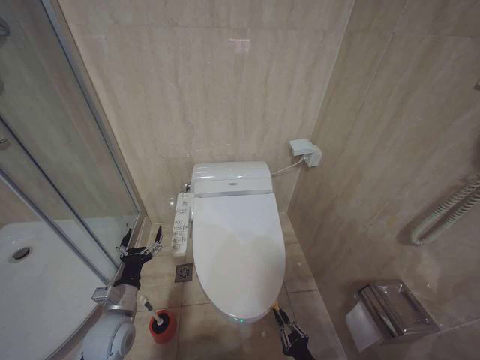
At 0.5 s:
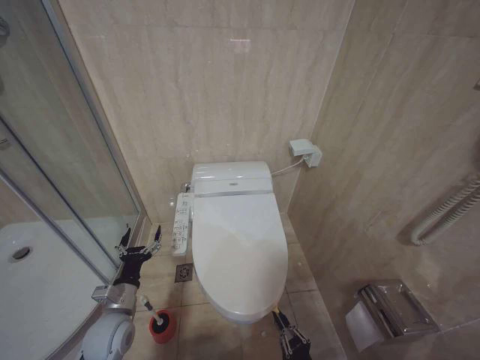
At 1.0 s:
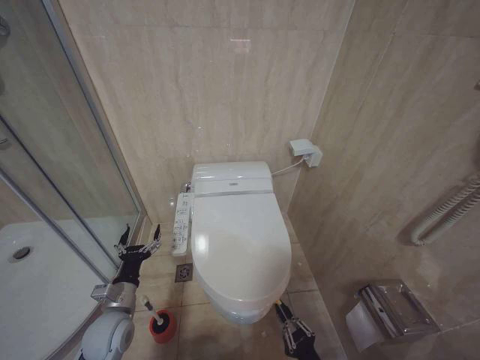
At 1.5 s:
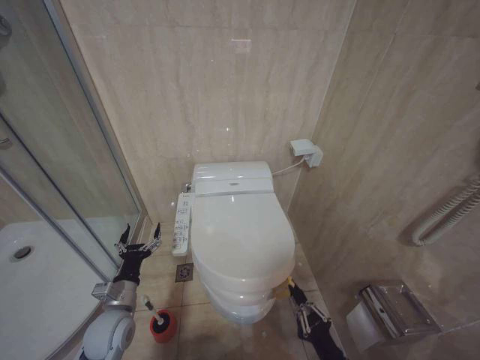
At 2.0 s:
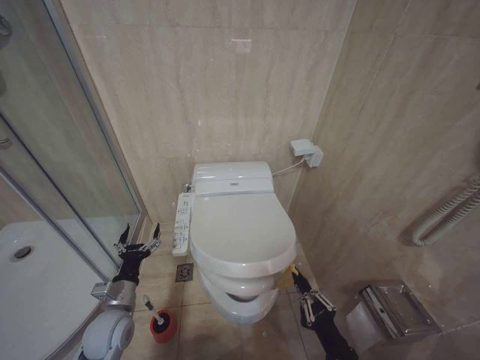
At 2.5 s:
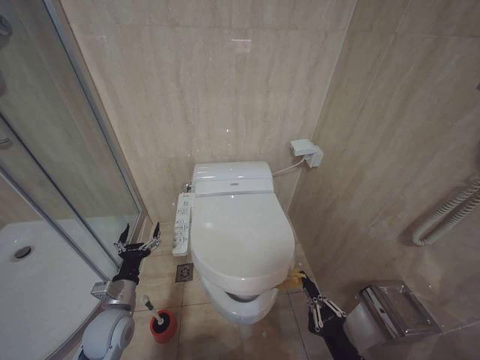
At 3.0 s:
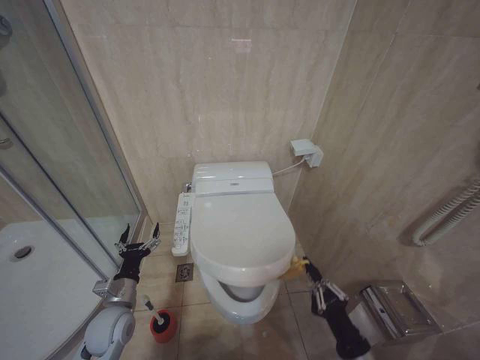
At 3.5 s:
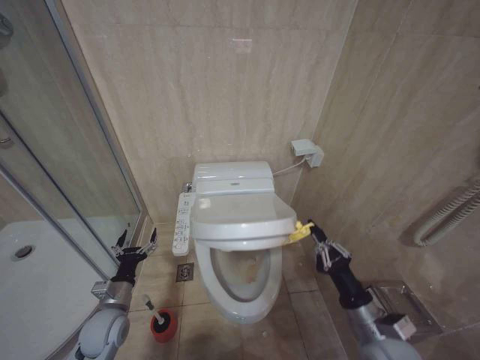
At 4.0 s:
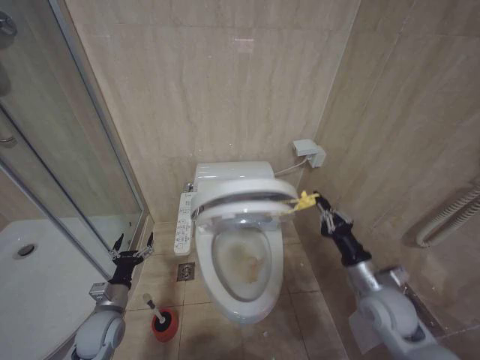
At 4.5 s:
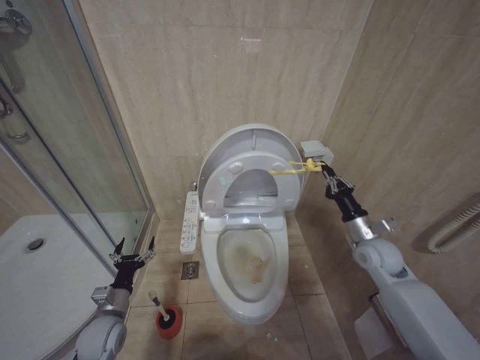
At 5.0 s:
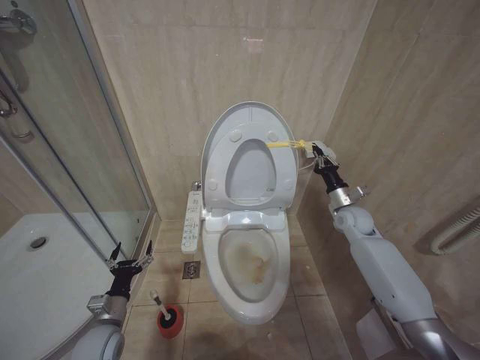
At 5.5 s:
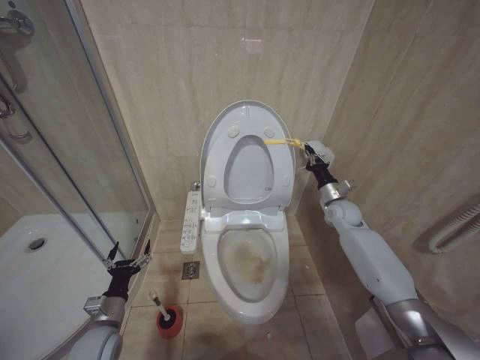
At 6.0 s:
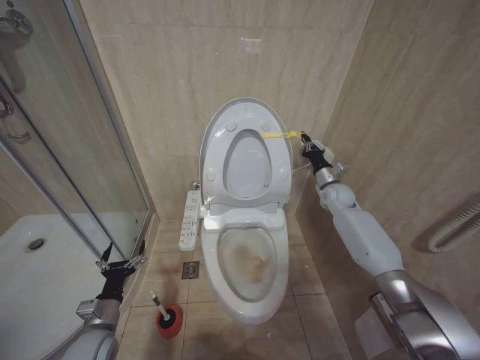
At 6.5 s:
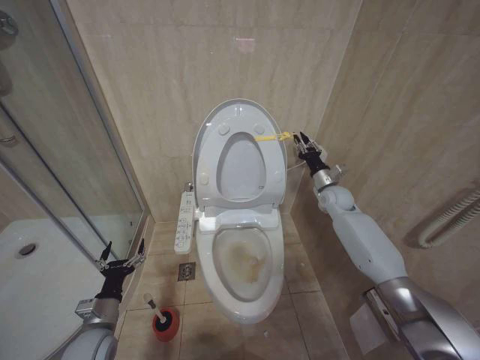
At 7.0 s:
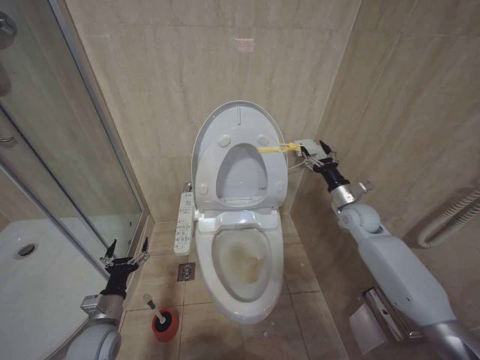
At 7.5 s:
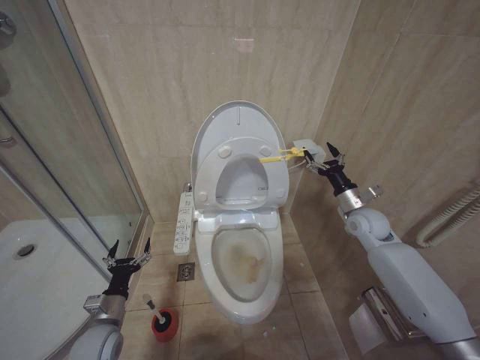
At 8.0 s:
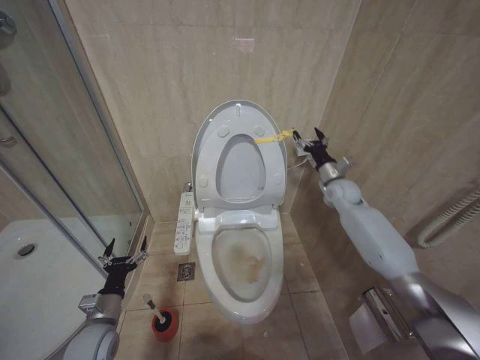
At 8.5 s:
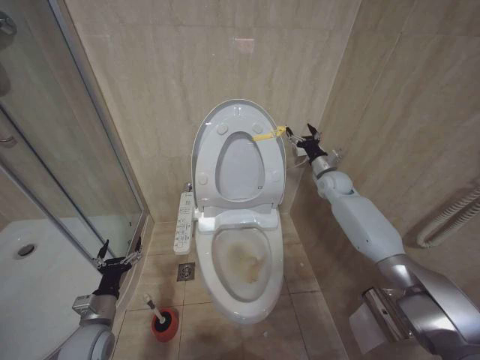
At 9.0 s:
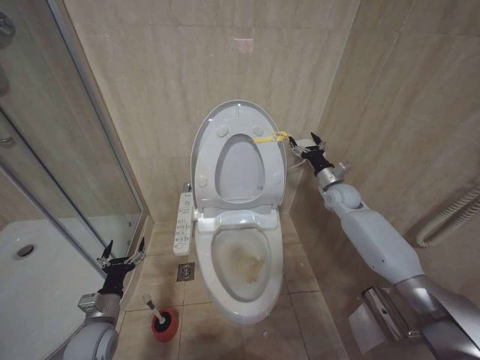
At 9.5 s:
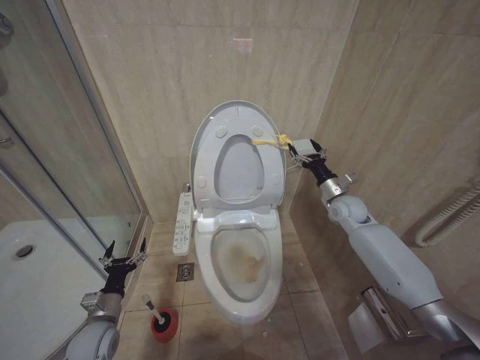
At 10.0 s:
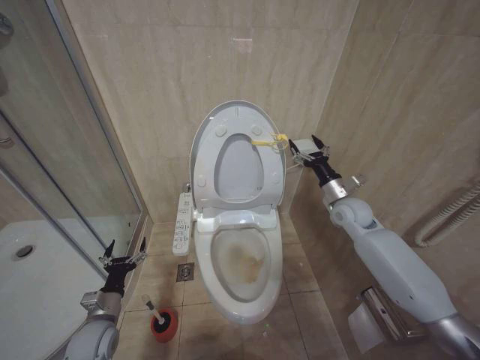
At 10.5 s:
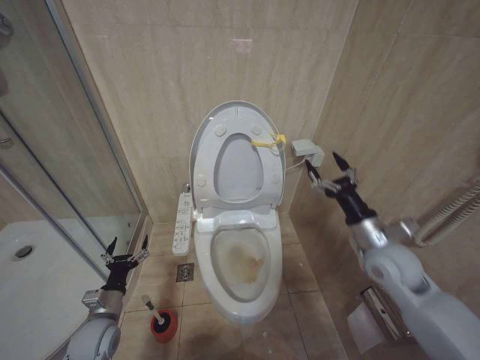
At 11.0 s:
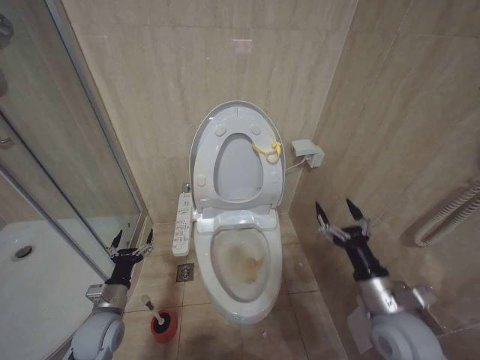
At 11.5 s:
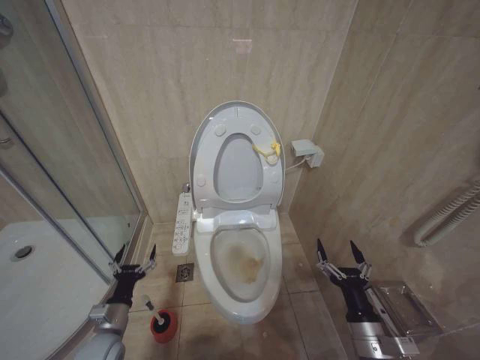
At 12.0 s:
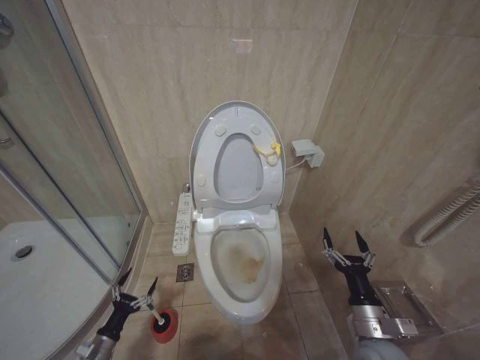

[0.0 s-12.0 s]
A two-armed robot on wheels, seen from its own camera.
Task of the whole recording: Open the toilet lid, clean the toilet bowl with a toilet brush, close the toilet lid, and flush.
0.0 to 2.0 s: The right gripper moves upward, approximately 15 cm.
2.0 to 4.0 s: The left gripper shifts by about 5 cm. The right gripper travels forward, upward and to the right by about 20 cm.
4.0 to 6.0 s: The right gripper travels forward by about 30 cm.
6.0 to 8.0 s: The right gripper moves some 10 cm backward and comes back, and opens.
8.0 to 10.0 s: The right gripper is displaced backward by roughly 5 cm.
10.0 to 12.0 s: The left gripper is displaced downward and to the left by approximately 15 cm, while the right gripper heads backward and downward, covering about 35 cm.

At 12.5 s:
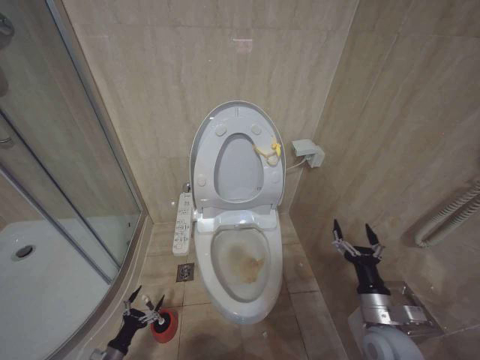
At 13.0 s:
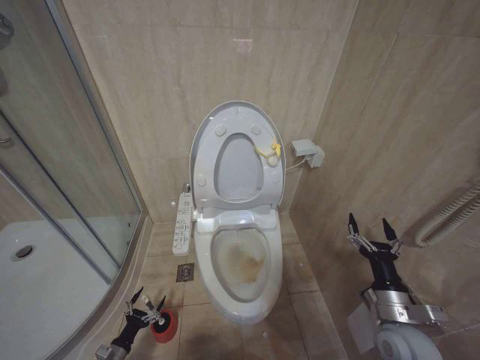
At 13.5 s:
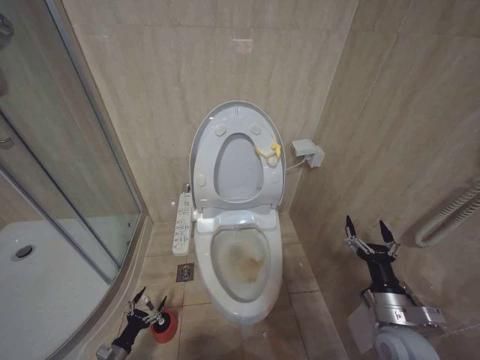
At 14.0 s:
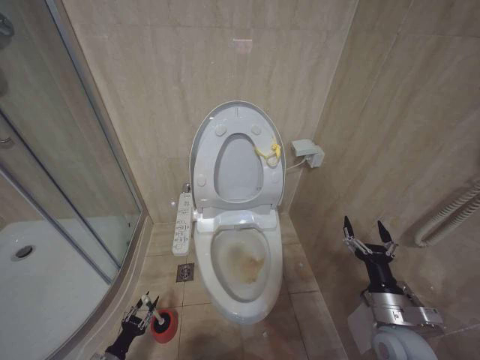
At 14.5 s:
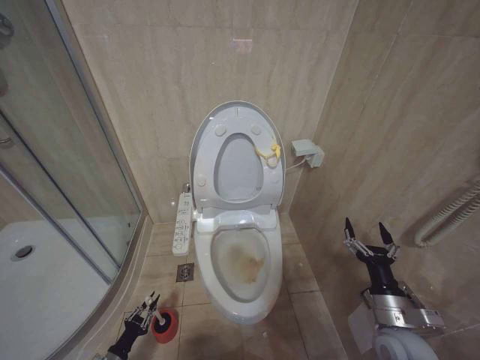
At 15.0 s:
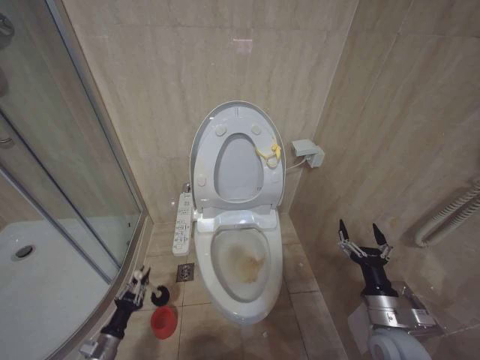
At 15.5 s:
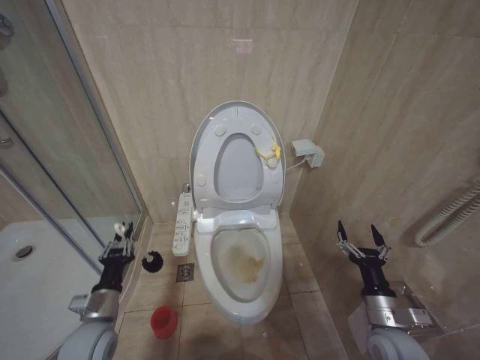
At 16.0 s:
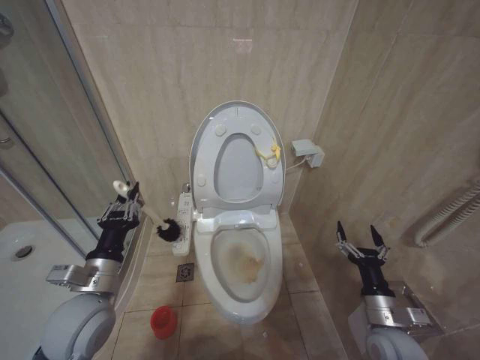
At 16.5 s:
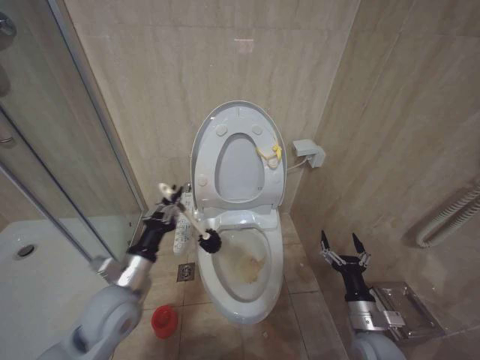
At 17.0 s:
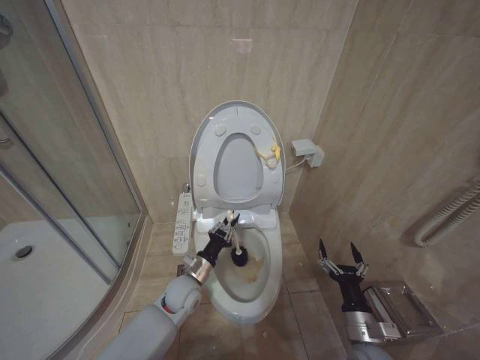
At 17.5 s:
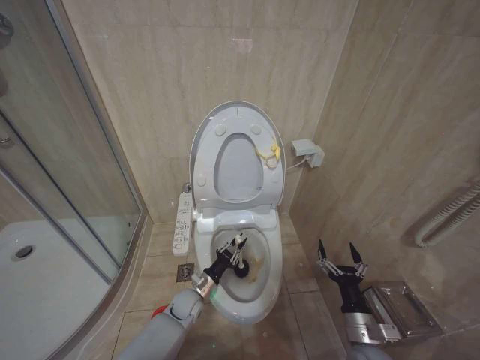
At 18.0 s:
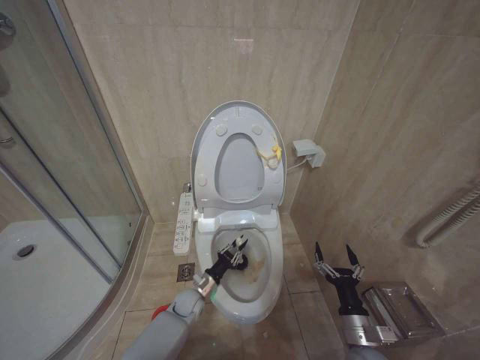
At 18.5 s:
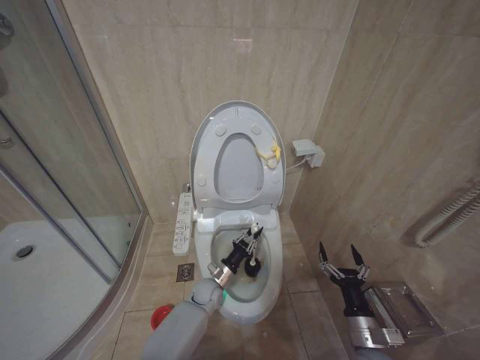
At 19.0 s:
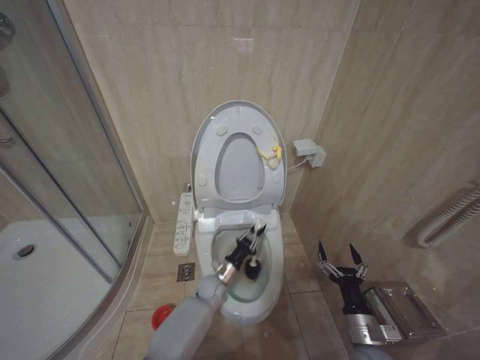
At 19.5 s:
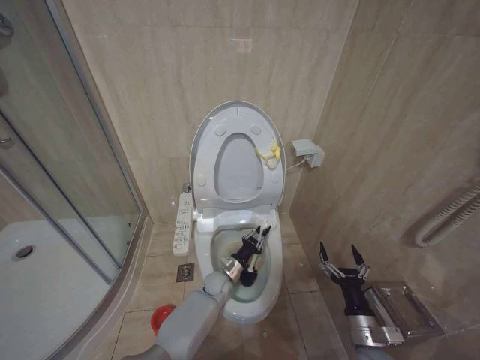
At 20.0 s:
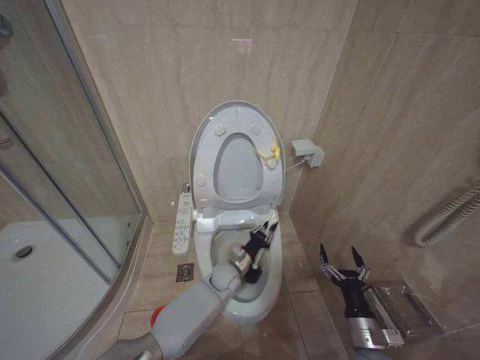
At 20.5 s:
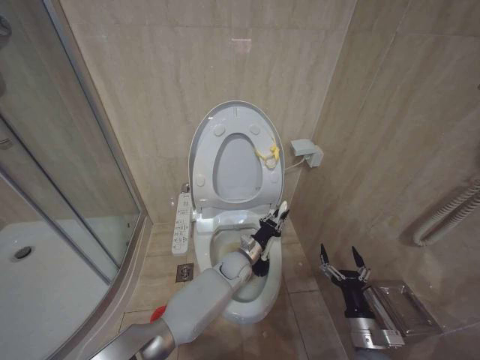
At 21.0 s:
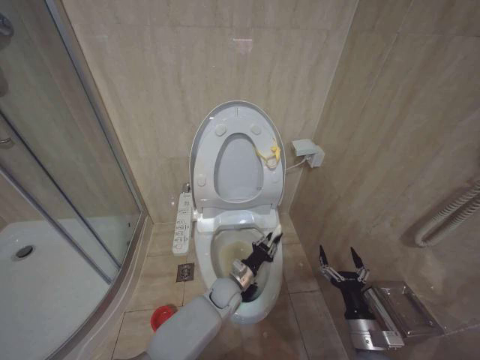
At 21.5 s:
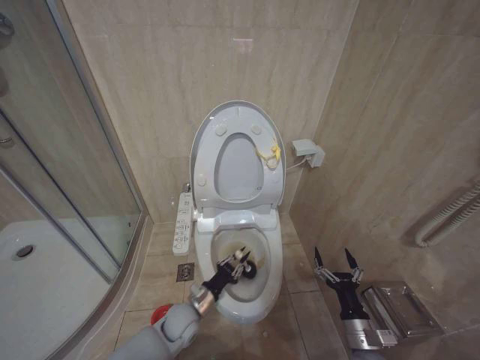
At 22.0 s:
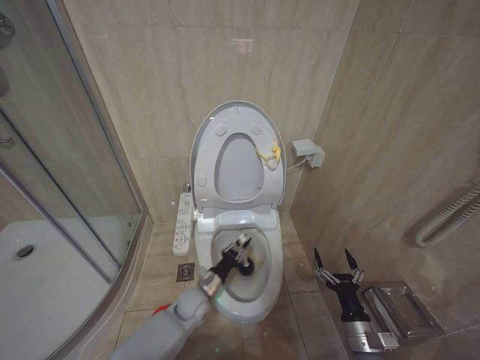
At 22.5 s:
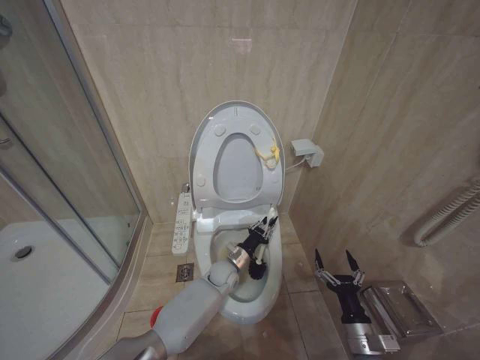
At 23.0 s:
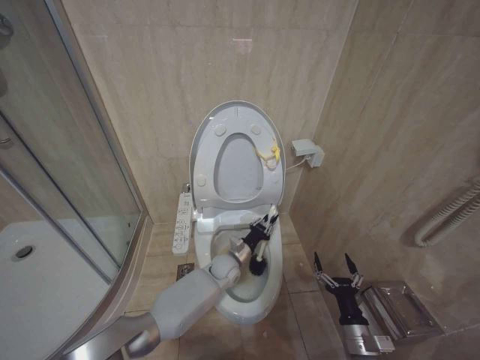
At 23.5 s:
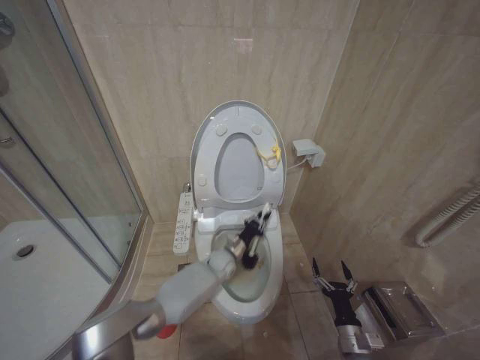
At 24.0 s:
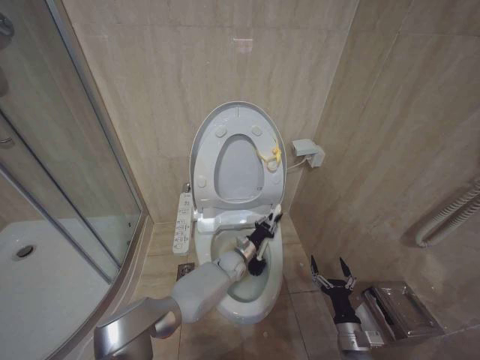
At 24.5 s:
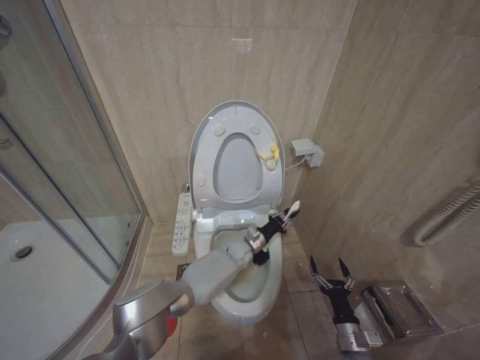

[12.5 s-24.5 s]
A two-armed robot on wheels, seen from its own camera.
Task of the whole recording: Open the toilet lid, clean the toilet bowl with a toilet brush, close the toilet lid, and flush.
12.5 to 14.5 s: The left gripper closes its fingers.
14.5 to 16.5 s: The right gripper ends up approximately 5 cm from where it was. Meanwhile the left gripper is displaced upward and to the right by about 40 cm.
16.5 to 18.5 s: The left gripper shifts roughly 35 cm downward, to the right and forward.
18.5 to 20.5 s: The left gripper goes roughly 15 cm to the right and upward.
20.5 to 22.5 s: The left gripper travels to the left and back again, roughly 15 cm each way.
22.5 to 24.5 s: The right gripper goes roughly 5 cm downward, while the left gripper is displaced forward and to the right by about 10 cm.

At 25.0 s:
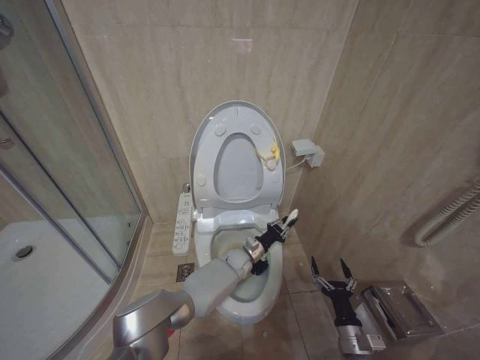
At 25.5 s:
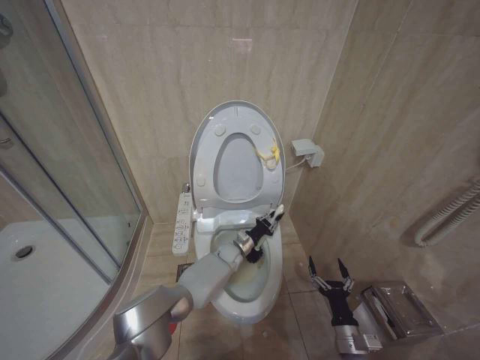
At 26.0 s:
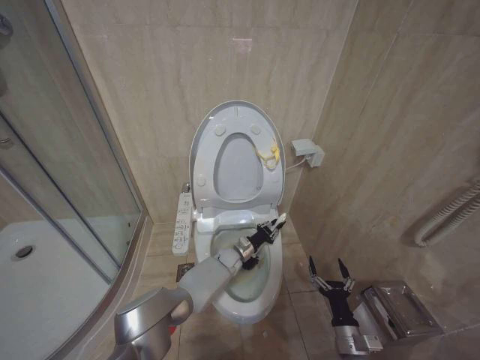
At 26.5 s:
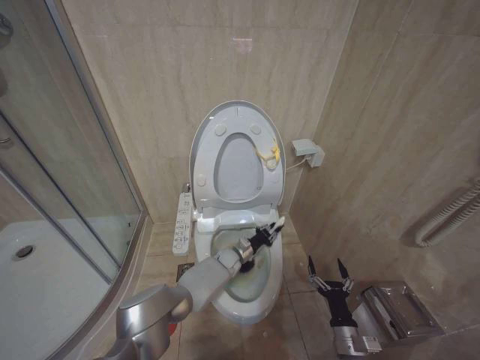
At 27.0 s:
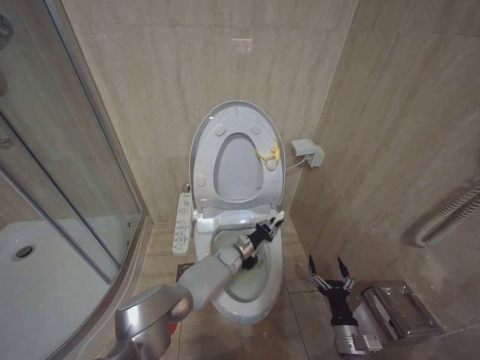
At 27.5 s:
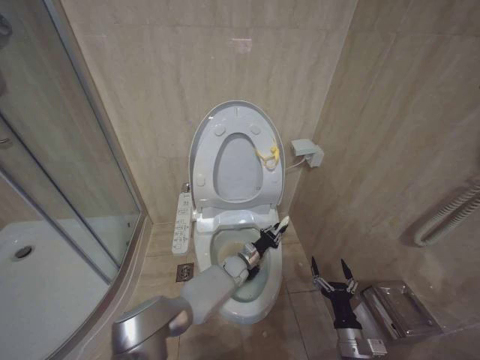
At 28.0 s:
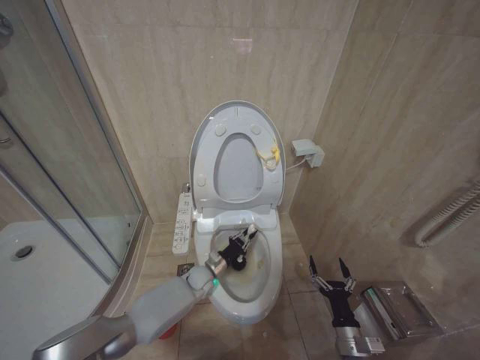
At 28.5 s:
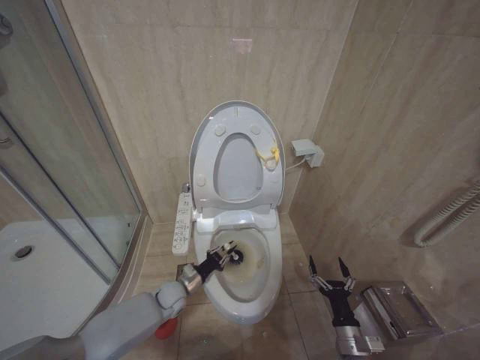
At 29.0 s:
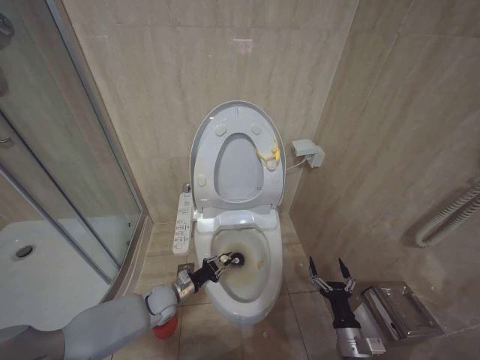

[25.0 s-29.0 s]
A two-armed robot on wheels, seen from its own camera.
Task of the whole recording: Open the toilet lid, clean the toilet bowl with a toilet brush, close the toilet lid, and flush.
25.0 to 27.0 s: There are only small adjustments of the grippers.
27.0 to 29.0 s: The left gripper moves to the left and backward, about 25 cm.
